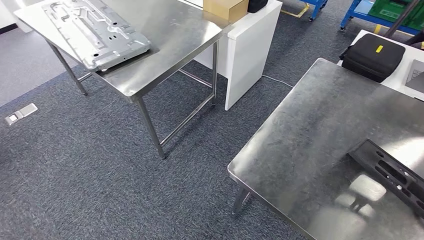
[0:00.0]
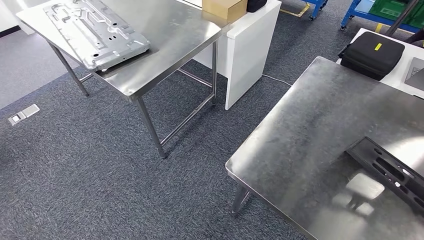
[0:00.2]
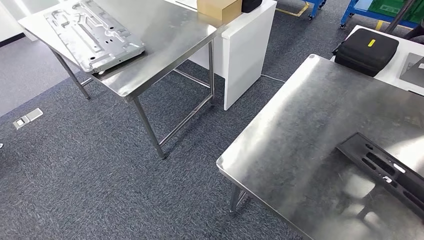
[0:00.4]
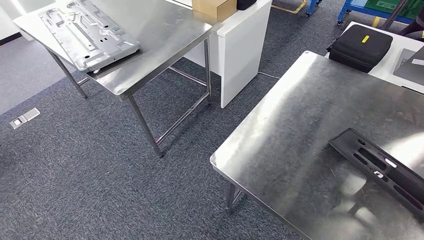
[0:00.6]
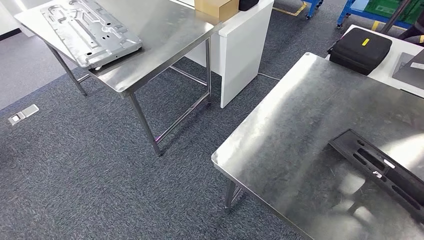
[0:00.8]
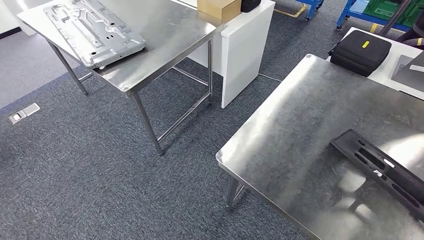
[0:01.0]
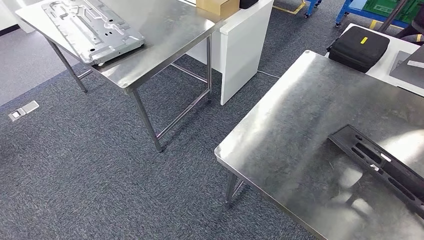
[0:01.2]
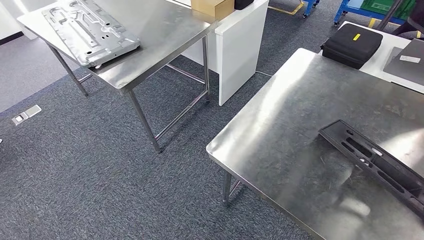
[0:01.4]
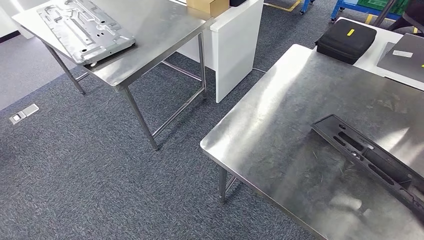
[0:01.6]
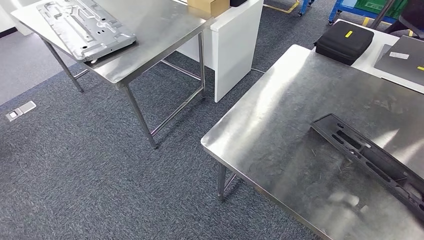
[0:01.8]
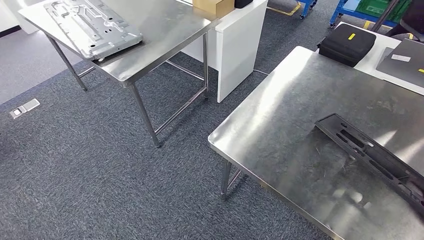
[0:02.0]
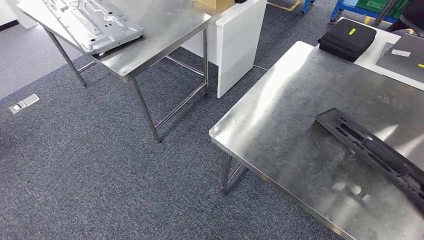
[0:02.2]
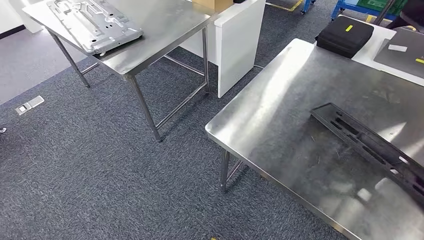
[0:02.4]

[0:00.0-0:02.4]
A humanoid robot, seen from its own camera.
Step, 0:00.0 to 0:02.2: Insert the large material into the corresponding slot on the workbench.

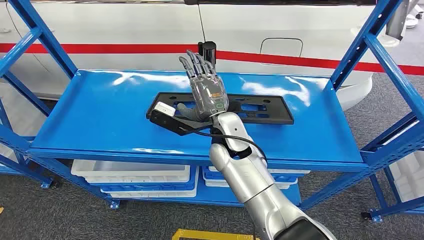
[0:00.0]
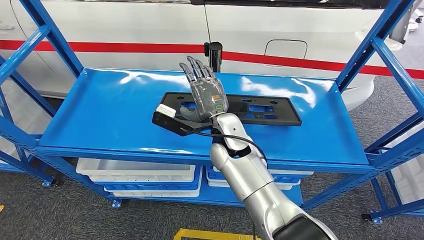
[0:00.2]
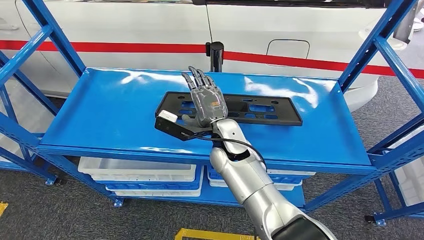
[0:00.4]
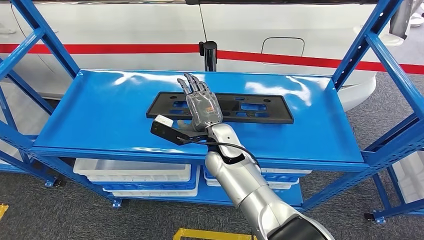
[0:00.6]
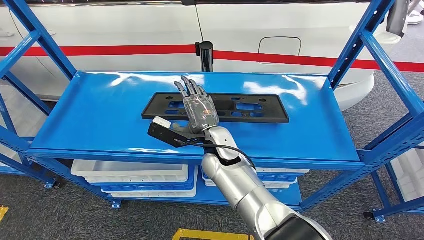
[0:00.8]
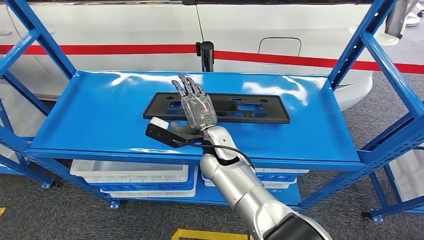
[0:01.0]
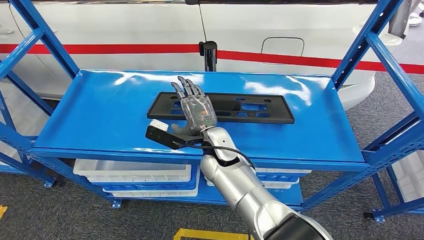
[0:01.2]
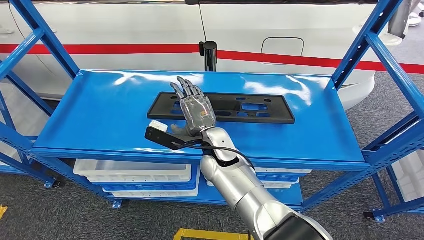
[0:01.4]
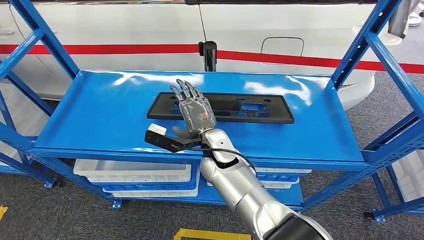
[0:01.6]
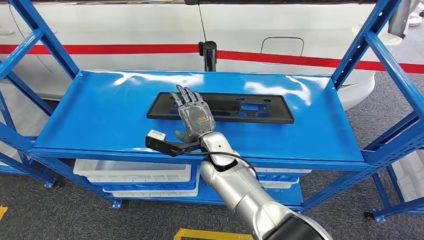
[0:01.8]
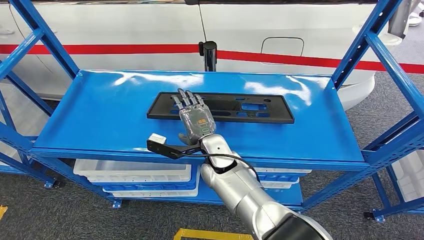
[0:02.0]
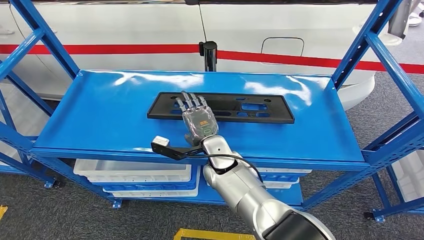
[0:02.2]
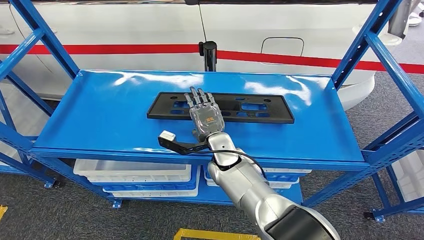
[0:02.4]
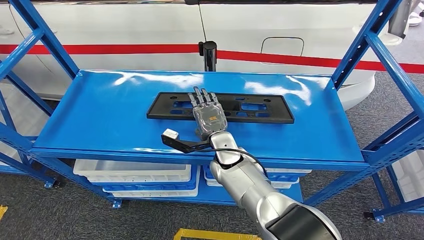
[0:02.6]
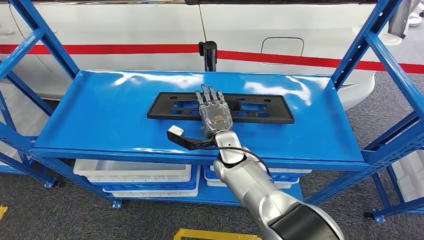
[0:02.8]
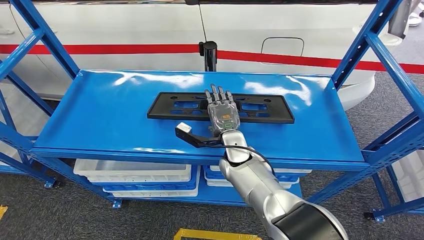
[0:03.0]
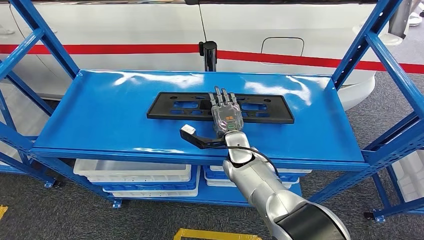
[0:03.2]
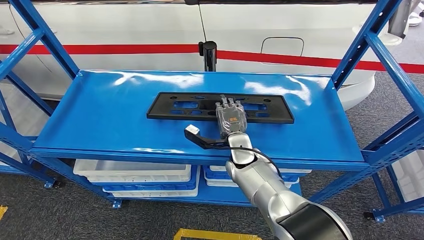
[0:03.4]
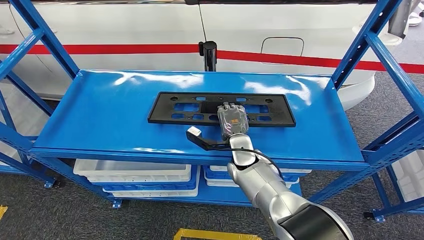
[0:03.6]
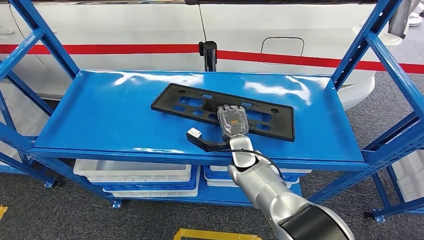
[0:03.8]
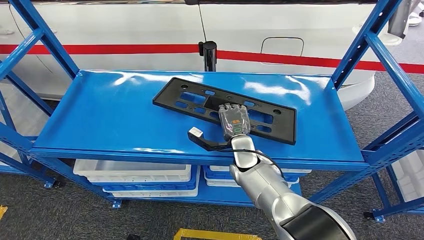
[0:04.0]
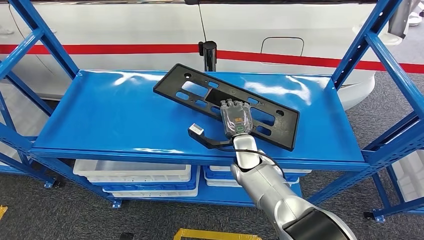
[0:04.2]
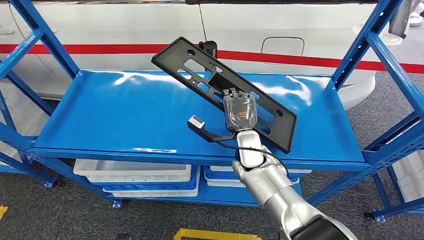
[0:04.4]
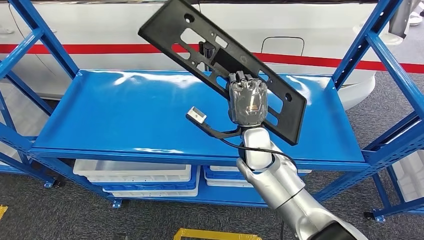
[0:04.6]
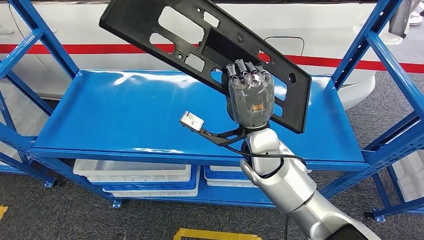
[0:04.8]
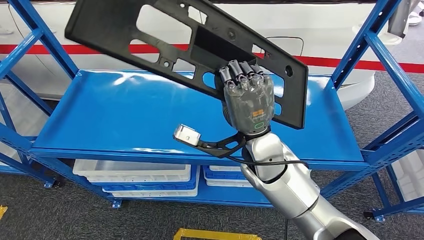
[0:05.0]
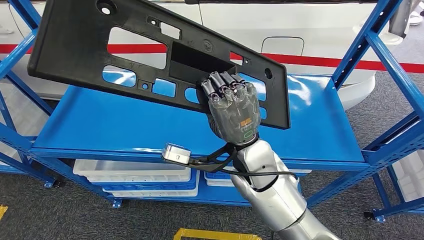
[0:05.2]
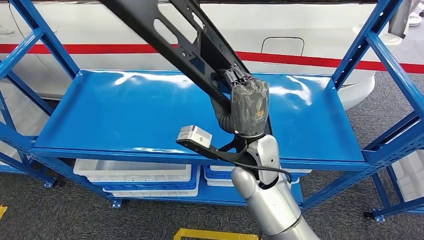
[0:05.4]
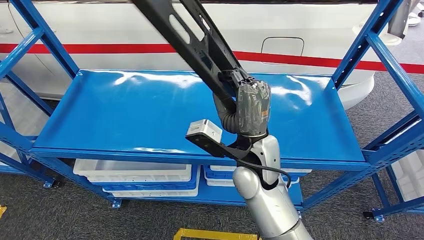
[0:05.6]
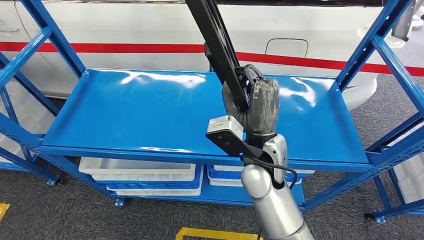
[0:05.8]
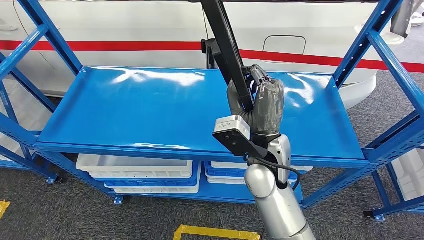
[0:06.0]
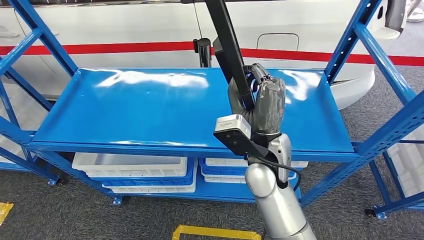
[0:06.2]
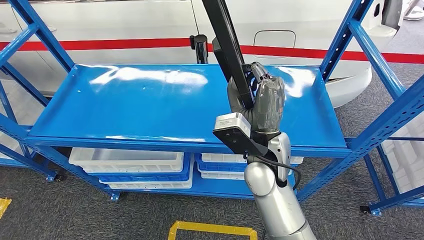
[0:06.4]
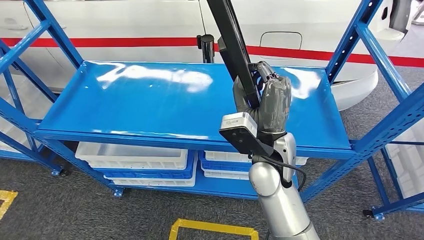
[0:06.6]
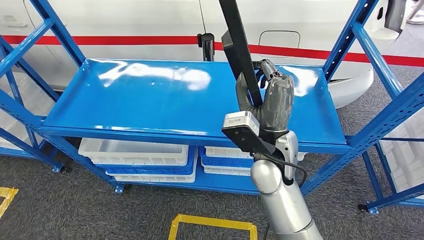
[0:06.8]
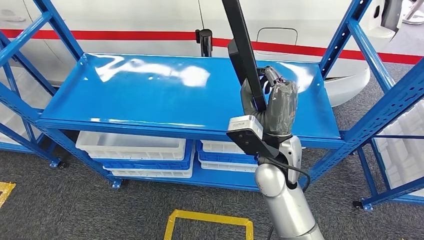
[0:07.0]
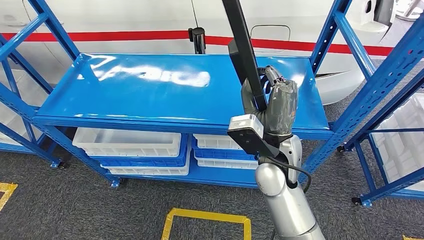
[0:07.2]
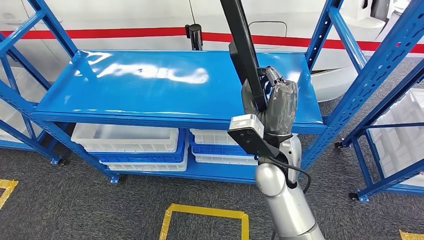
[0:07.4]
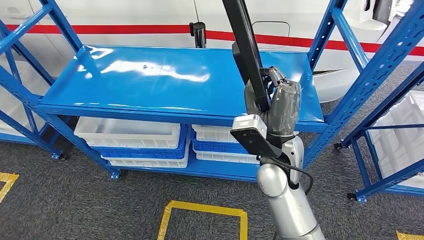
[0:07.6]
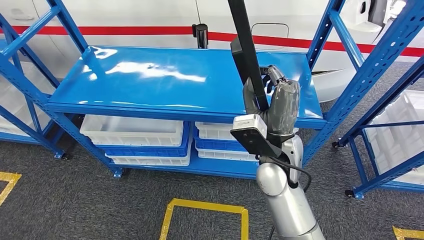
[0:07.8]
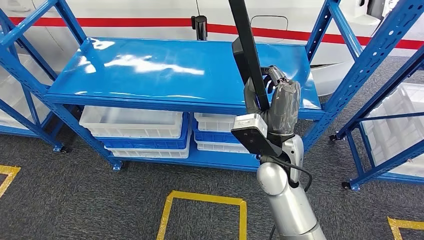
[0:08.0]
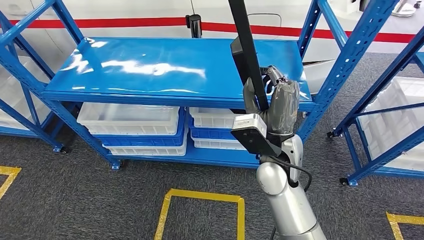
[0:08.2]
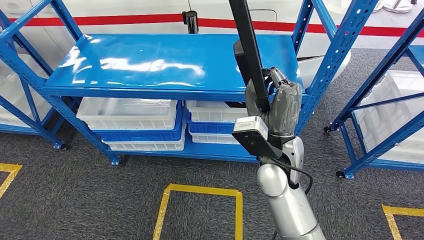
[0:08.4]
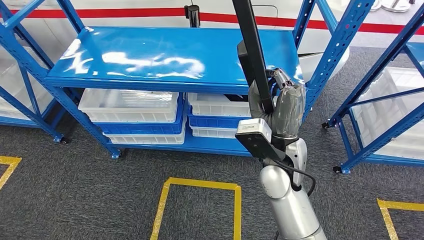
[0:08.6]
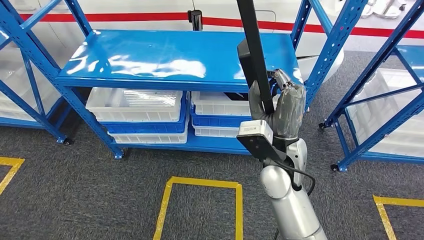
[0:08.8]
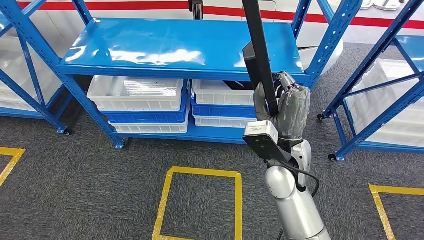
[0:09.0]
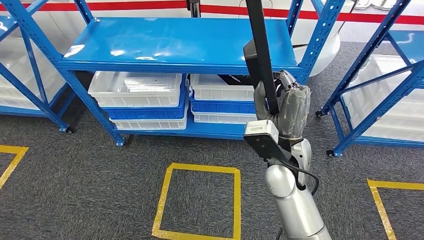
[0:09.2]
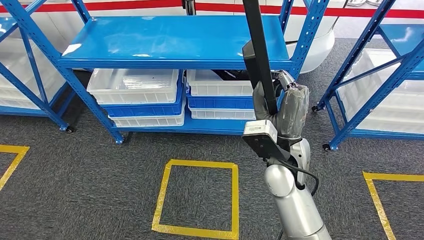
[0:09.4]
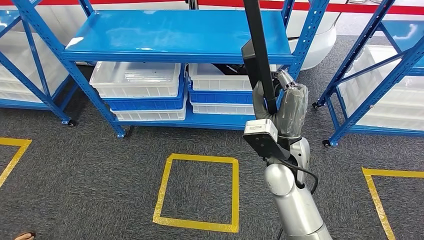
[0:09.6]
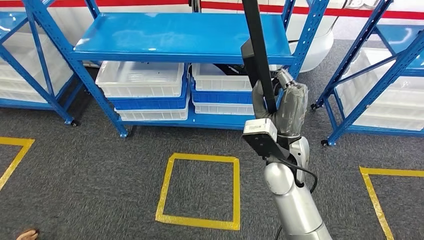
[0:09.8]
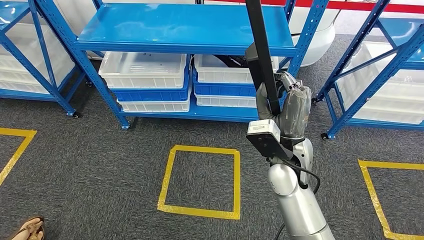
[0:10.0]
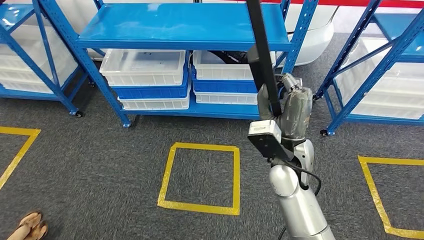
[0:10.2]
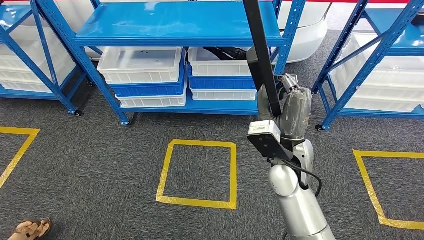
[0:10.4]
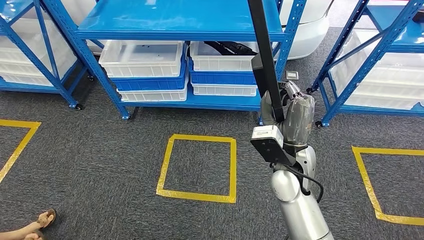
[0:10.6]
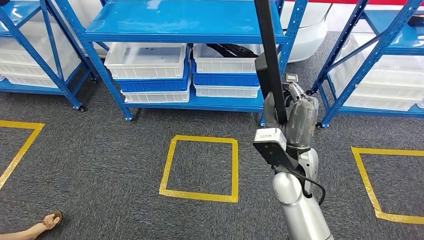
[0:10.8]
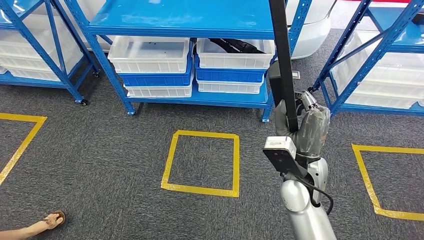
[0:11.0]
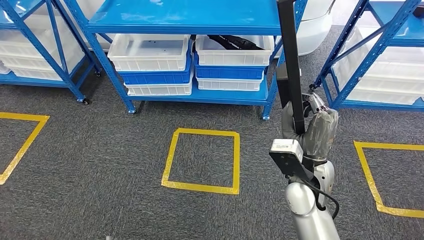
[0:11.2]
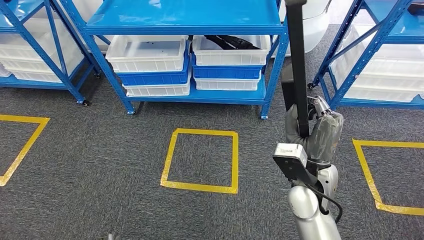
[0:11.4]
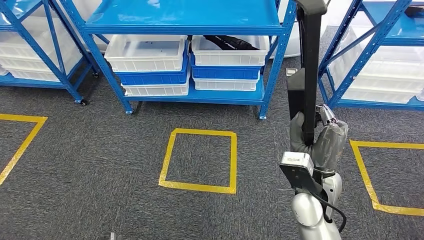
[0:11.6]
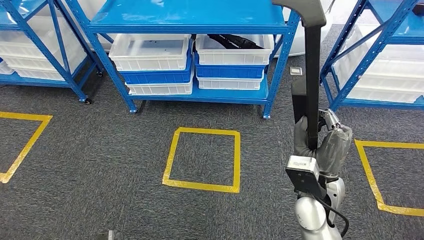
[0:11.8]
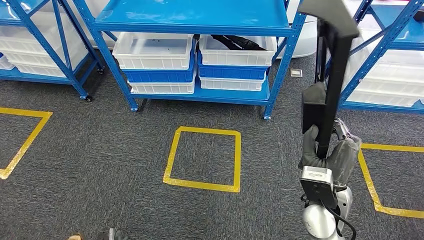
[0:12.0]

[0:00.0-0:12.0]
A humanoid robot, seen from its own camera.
Step, 0:00.0 to 0:07.4: Pick up the large material from the shelf.
0:01.6 to 0:03.0: The right hand is displaced to the right by approximately 5 cm.

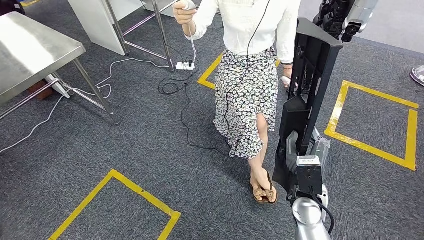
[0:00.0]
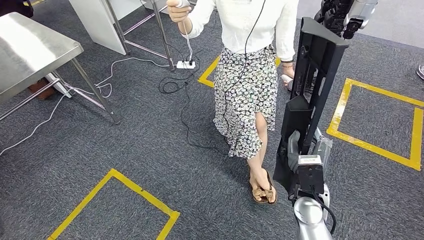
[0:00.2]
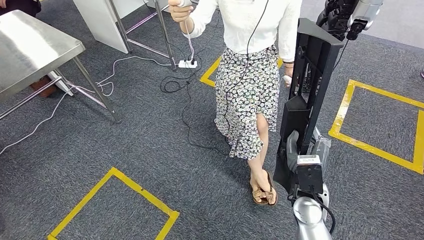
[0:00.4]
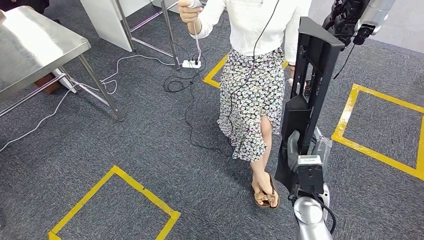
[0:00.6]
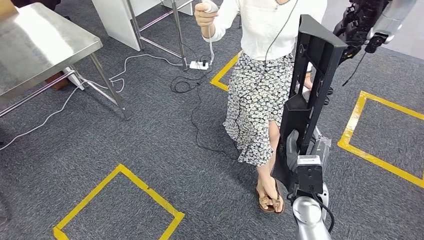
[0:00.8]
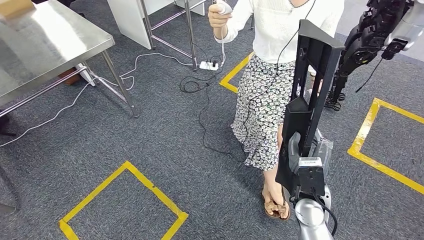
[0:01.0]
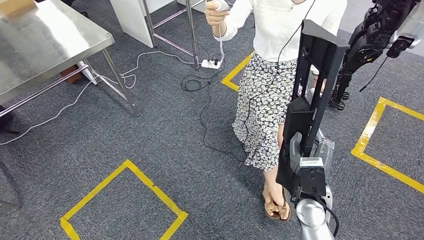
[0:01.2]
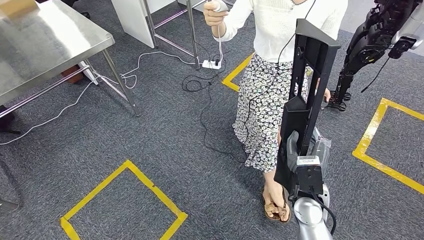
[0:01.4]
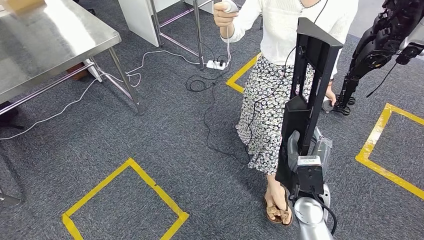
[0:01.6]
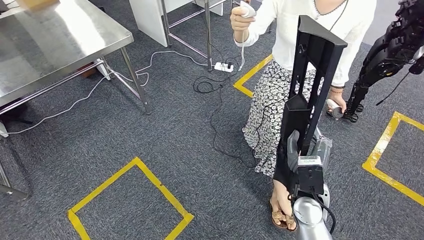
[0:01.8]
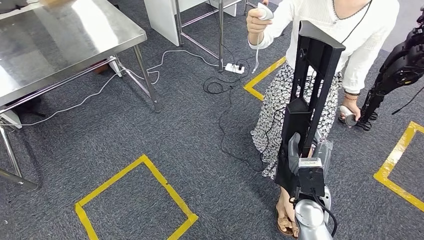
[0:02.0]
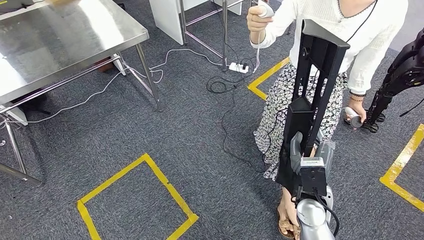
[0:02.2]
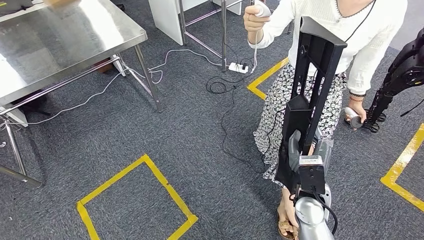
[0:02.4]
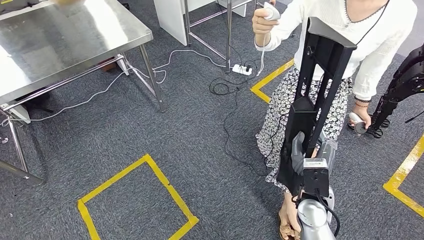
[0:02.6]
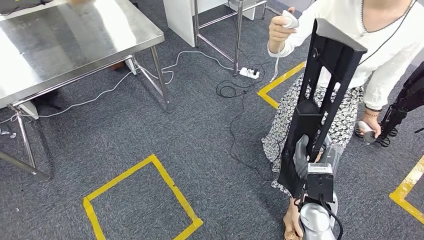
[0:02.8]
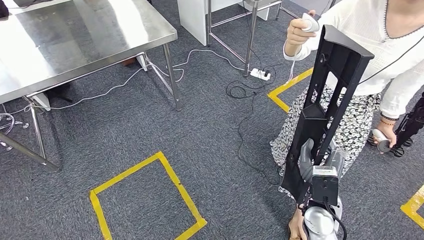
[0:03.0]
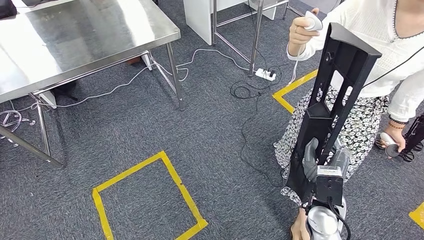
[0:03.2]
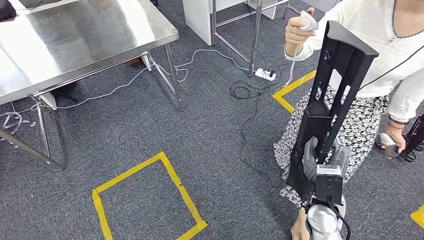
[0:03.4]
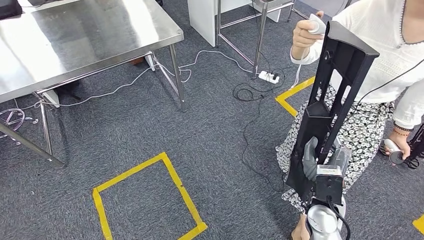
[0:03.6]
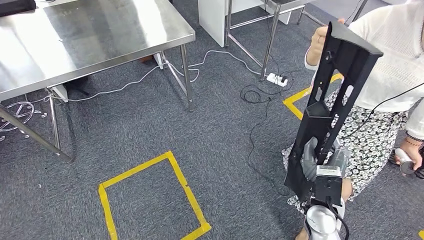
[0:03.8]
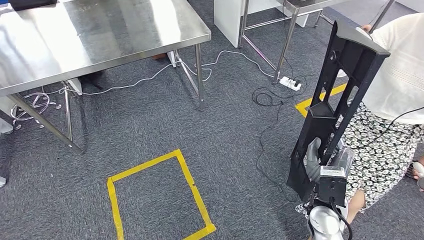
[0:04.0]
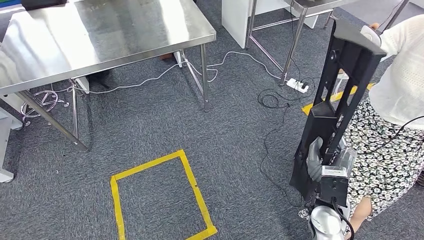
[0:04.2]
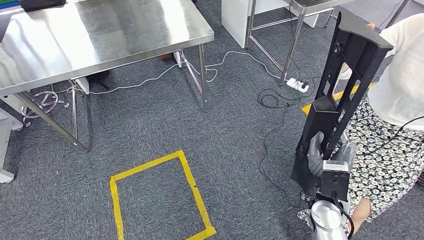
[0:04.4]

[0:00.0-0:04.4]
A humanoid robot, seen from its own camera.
Step, 0:00.0 to 0:02.8: Move the large material to the workbench.
